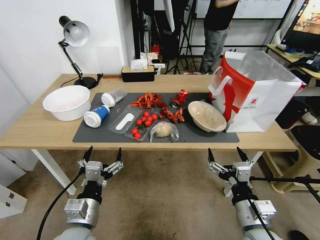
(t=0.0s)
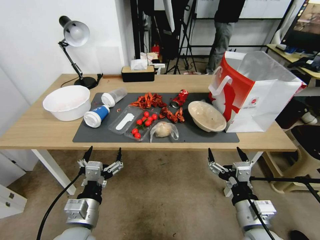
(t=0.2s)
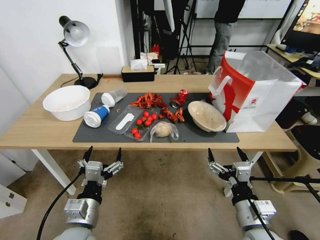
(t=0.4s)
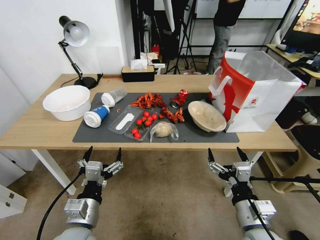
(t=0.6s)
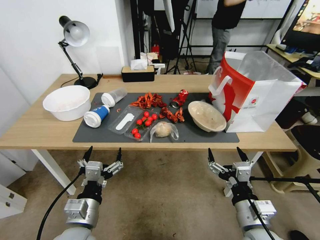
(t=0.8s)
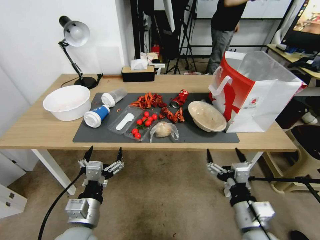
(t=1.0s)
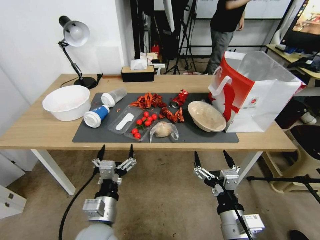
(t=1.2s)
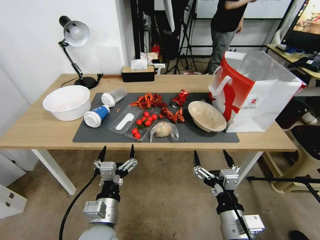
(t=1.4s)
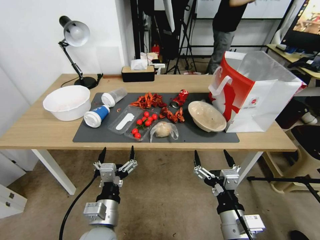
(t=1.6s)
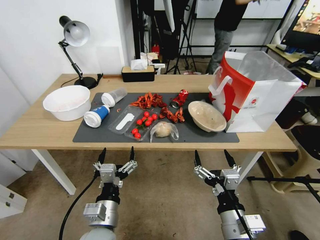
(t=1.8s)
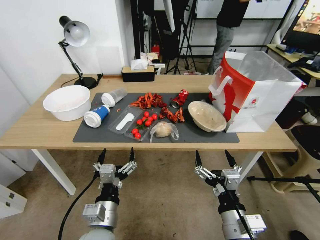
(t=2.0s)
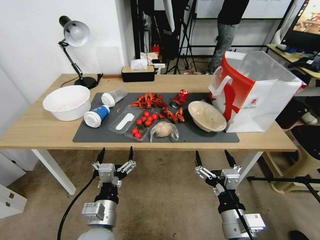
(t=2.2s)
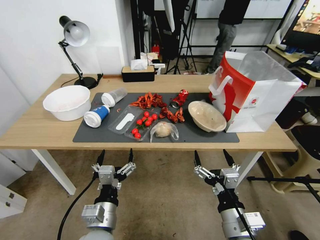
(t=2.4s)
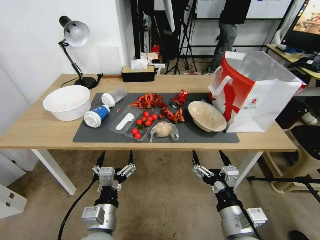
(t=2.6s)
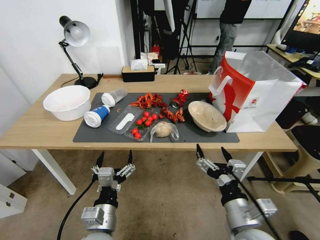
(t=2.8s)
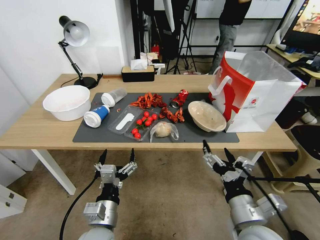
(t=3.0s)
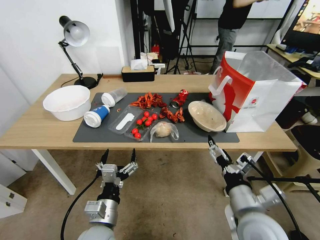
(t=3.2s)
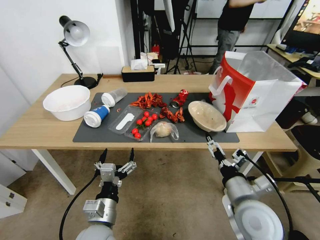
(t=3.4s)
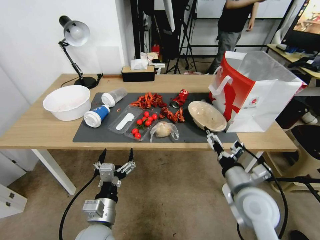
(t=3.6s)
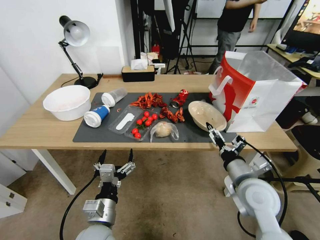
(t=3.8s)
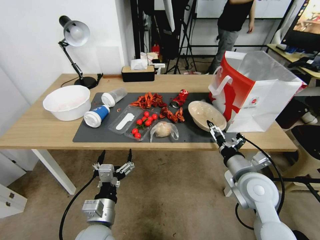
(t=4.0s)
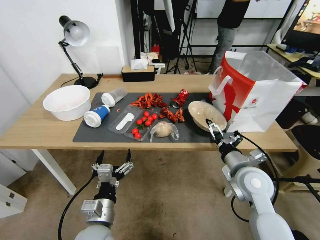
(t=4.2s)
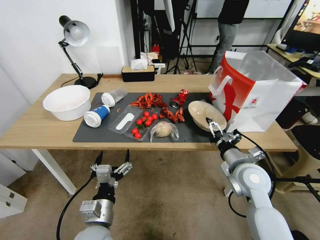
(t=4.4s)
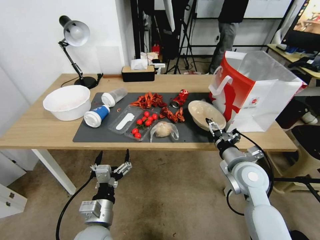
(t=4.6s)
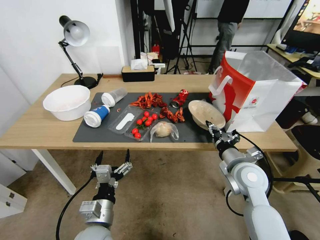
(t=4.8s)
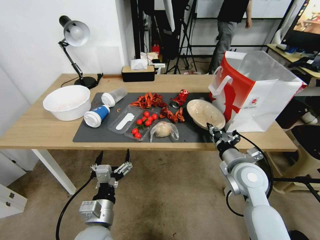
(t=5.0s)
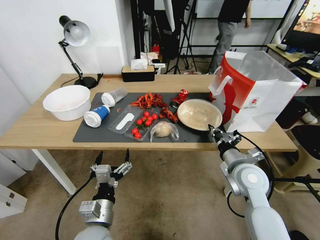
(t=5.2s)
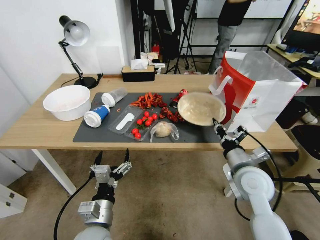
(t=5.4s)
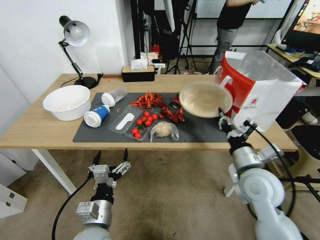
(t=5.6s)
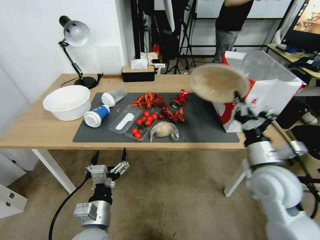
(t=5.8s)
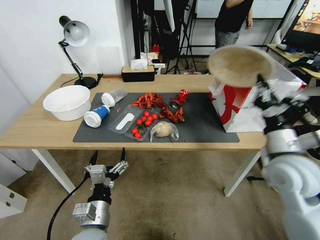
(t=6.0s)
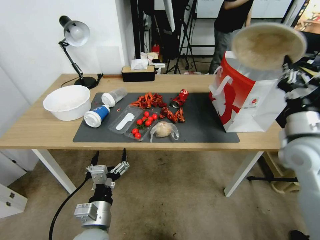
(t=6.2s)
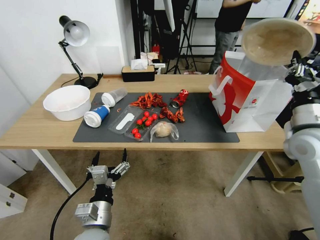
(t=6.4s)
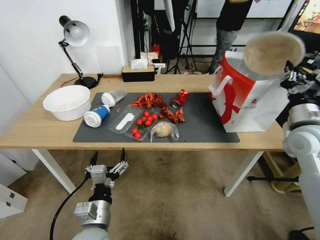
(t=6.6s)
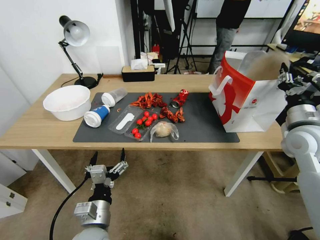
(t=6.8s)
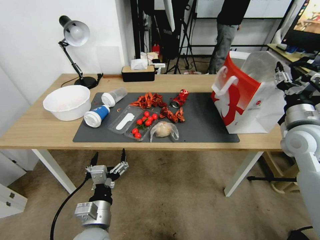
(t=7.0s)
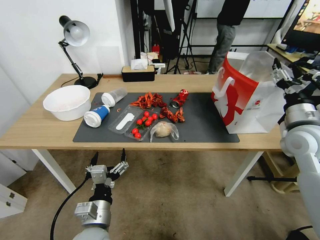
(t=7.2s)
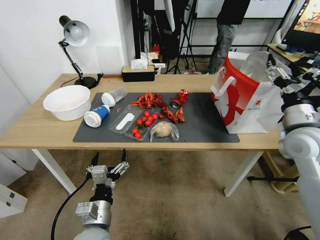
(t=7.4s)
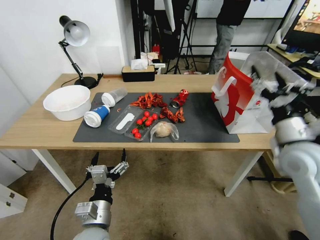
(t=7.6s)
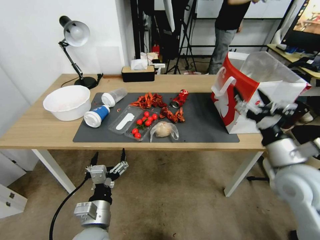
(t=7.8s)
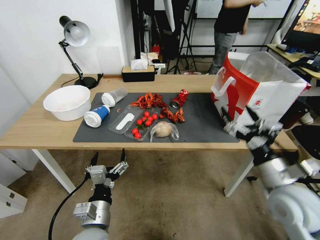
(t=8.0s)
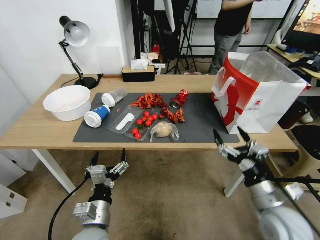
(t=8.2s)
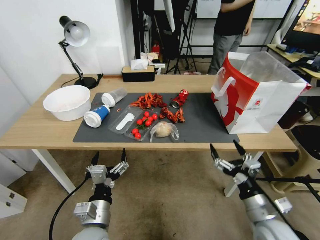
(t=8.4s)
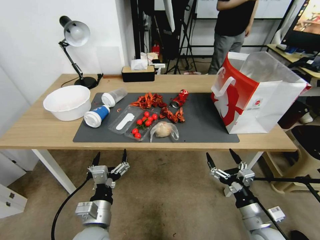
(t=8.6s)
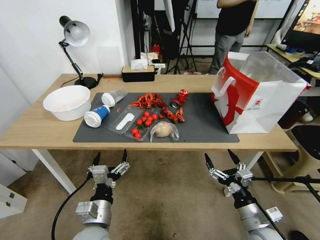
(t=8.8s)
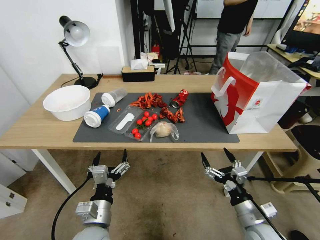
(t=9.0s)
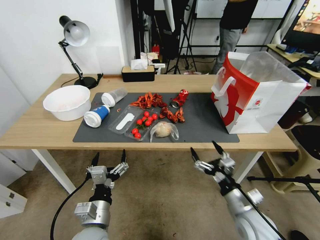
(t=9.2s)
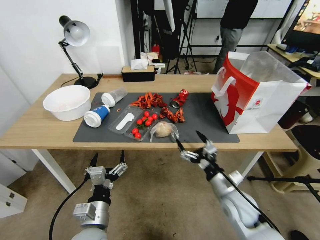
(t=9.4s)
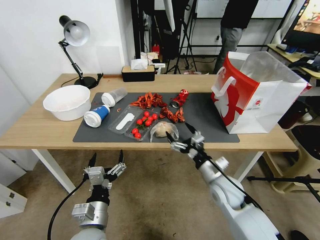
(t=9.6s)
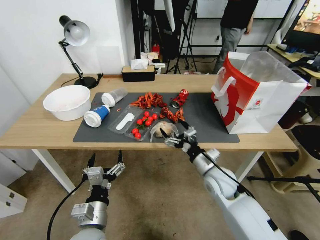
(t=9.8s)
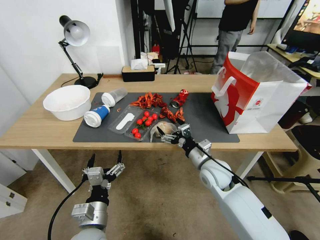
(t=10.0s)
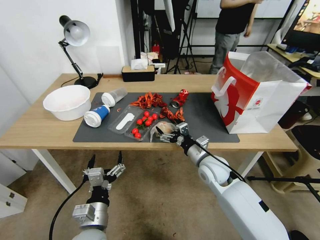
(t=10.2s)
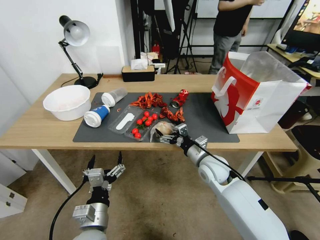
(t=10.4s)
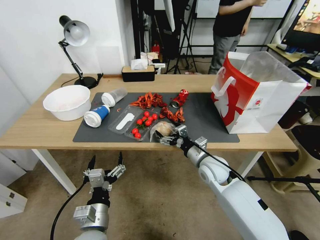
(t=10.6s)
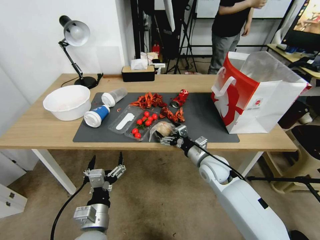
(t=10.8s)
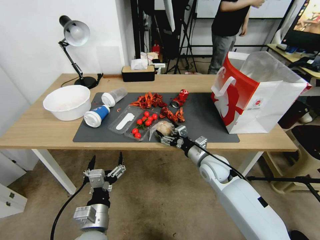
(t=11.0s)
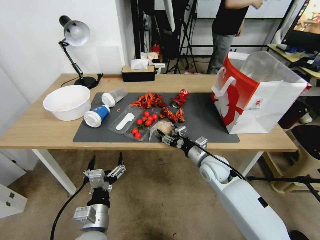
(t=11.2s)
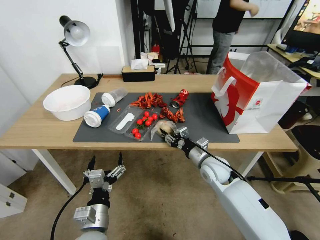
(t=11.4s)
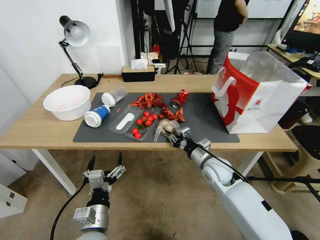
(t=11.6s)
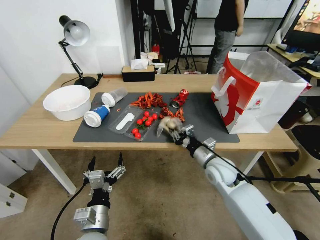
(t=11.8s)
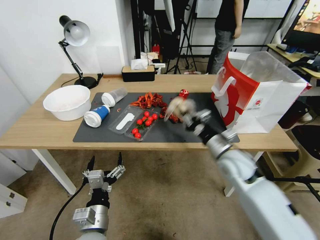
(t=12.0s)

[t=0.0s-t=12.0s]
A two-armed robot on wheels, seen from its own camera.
t=1.6s to t=3.0s: There are only small adjustments of the grippers.
t=3.0s to t=4.4s: The right gripper is displaced forward by about 15 cm.
t=4.4s to t=6.0s: The right gripper shifts approximately 10 cm upward and to the right, and closes its fingers.
t=6.0s to t=7.6s: The right gripper opens.
t=7.6s to t=9.0s: The right gripper heads downward and backward, covering approximately 25 cm.
t=9.0s to t=10.4s: The right gripper is displaced forward and to the left by roughly 20 cm.
t=10.4s to t=12.0s: The right gripper shifts approximately 10 cm upward and to the right, and closes its fingers.

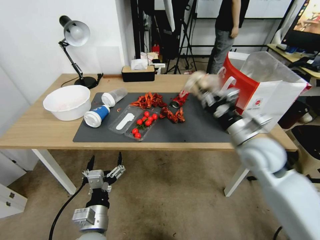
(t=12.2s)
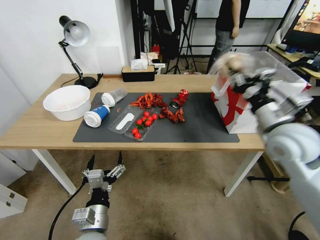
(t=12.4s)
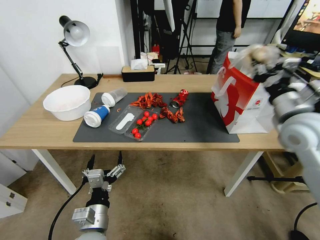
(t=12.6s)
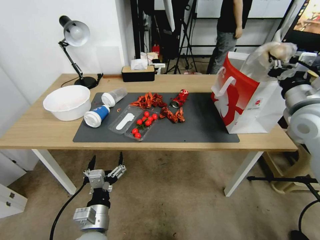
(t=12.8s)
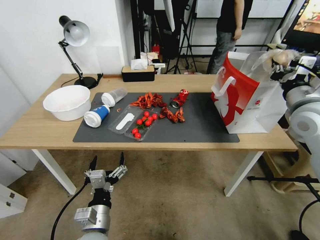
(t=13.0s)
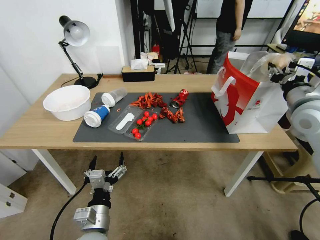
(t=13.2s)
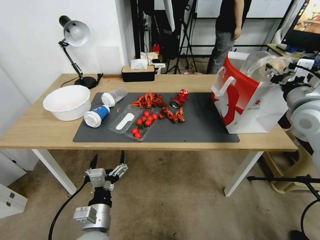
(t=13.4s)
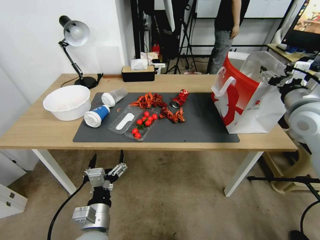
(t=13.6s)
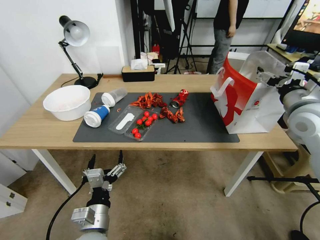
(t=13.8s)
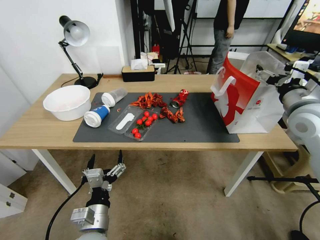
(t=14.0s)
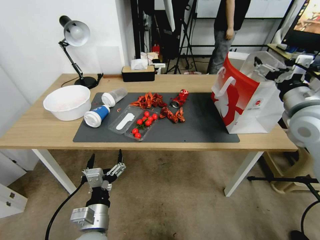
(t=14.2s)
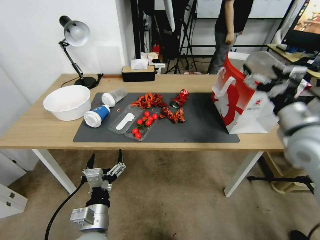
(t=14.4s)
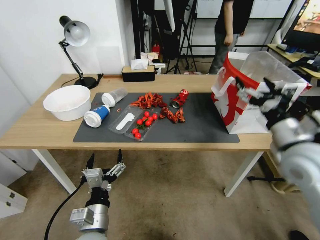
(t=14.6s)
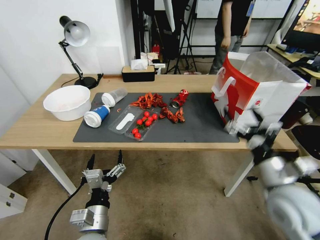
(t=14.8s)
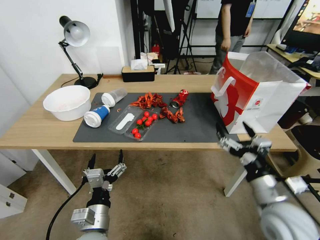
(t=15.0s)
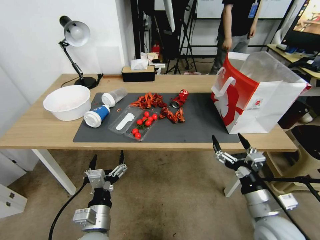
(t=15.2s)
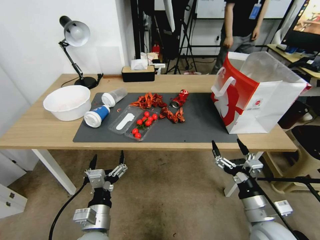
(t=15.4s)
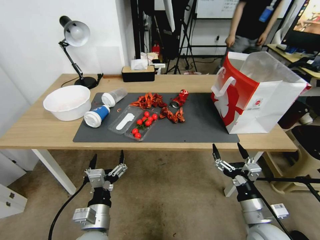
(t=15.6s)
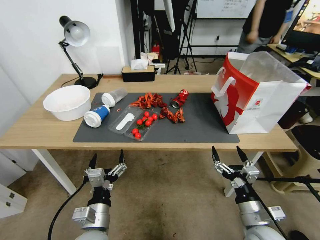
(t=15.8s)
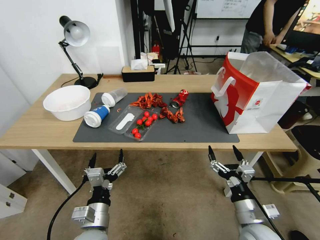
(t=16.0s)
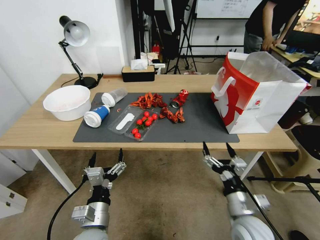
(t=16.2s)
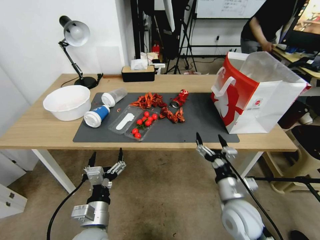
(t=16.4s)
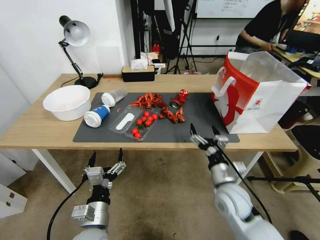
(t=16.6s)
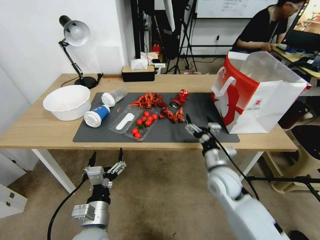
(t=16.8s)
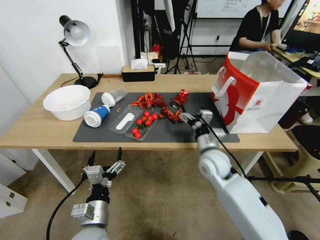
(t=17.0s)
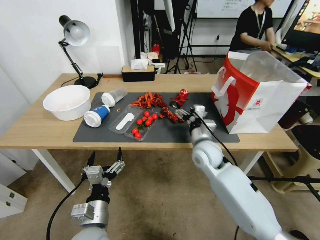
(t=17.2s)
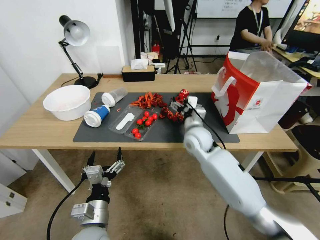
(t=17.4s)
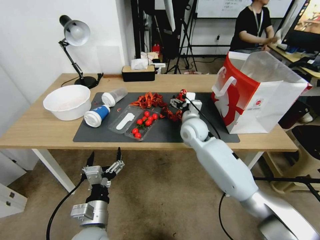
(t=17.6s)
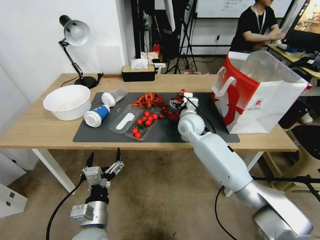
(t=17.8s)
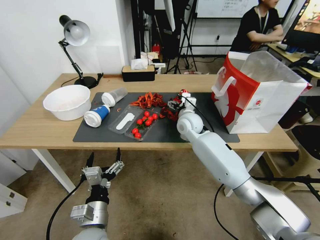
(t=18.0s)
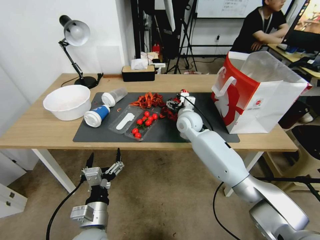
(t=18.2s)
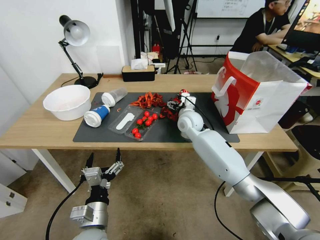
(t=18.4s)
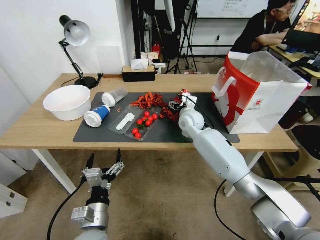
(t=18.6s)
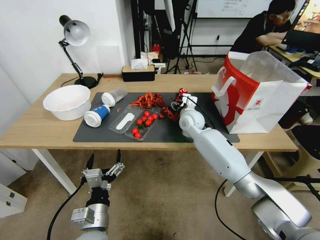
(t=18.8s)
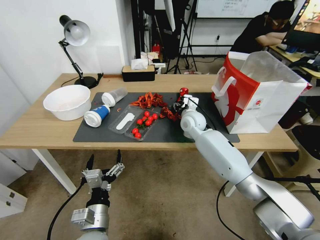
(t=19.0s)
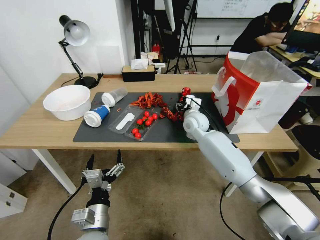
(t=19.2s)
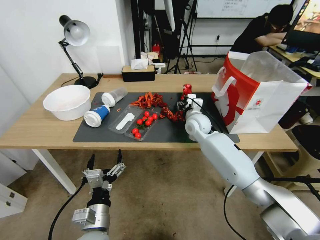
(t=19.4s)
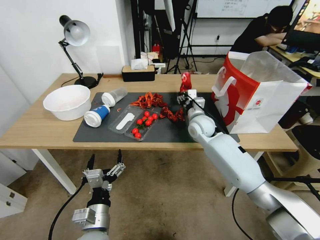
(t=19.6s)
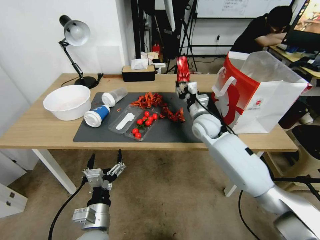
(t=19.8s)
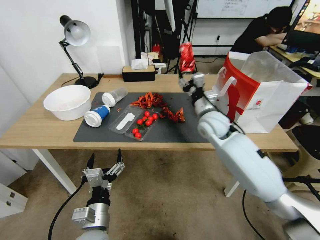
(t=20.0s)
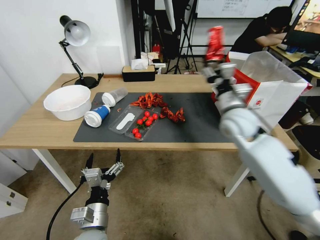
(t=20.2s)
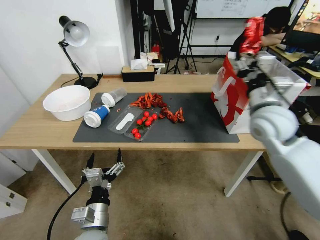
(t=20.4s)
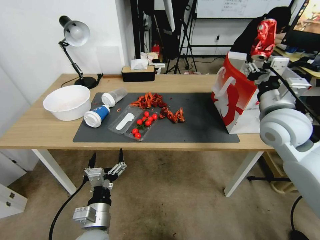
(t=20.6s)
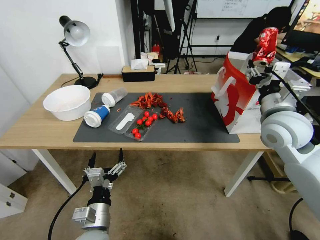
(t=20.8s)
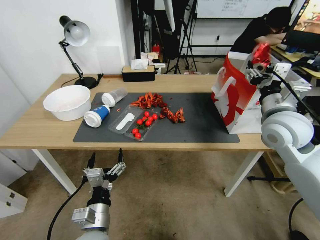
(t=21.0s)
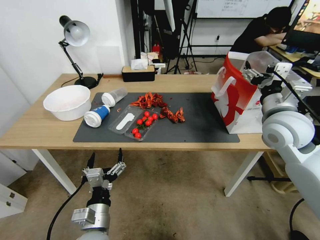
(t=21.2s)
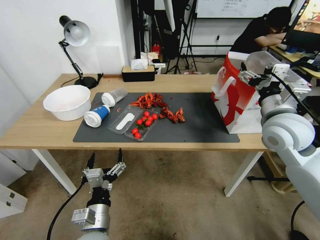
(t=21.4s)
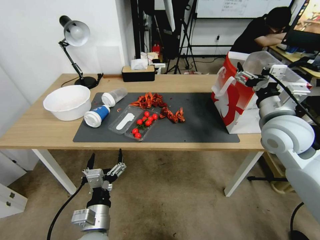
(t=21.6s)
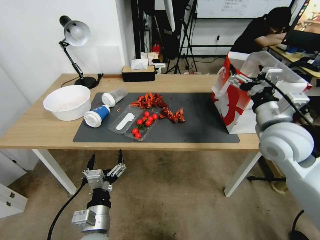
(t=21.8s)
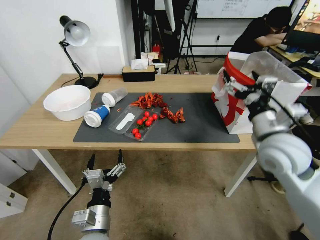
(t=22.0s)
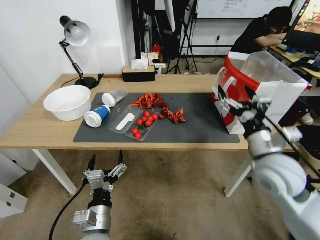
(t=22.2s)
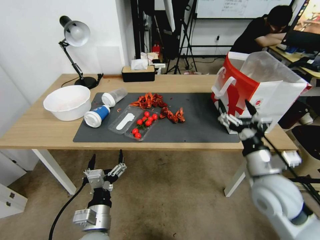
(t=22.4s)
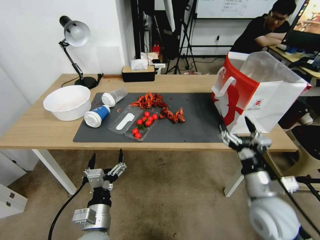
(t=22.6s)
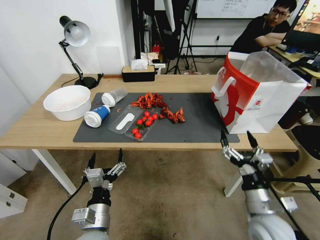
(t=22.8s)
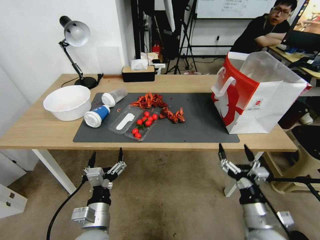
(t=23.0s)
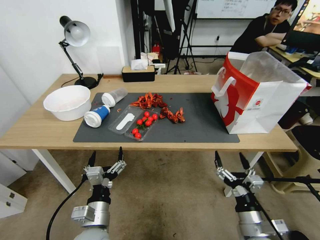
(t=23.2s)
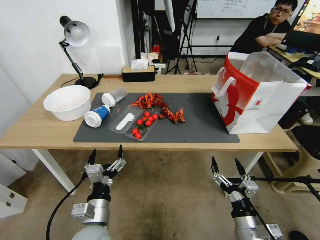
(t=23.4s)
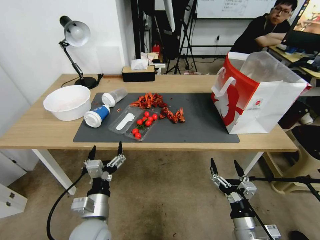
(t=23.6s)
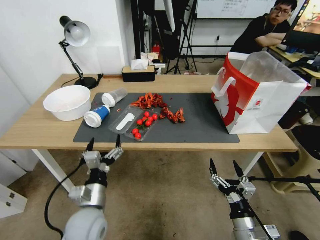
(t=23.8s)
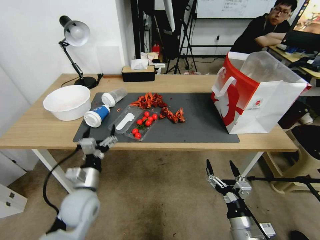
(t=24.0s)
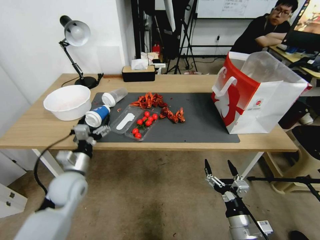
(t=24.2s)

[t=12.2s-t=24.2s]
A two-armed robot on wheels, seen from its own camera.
t=12.2s to t=13.8s: The right gripper moves to the right and upward, some 15 cm, and opens its fingers.
t=13.8s to t=15.2s: The right gripper moves backward, downward and to the left, roughly 25 cm.
t=15.2s to t=16.6s: The right gripper goes about 15 cm downward, to the left and forward.
t=16.6s to t=18.2s: The right gripper is displaced forward by some 25 cm.
t=18.2s to t=19.8s: The right gripper shifts some 5 cm to the right, and closes up.
t=19.8s to t=21.2s: The right gripper shifts some 25 cm upward, to the right and backward.
t=21.2s to t=22.6s: The right gripper is displaced downward and backward by approximately 25 cm.
t=22.6s to t=24.2s: The left gripper is displaced forward and to the left by some 15 cm. The right gripper shifts about 15 cm downward and backward.
